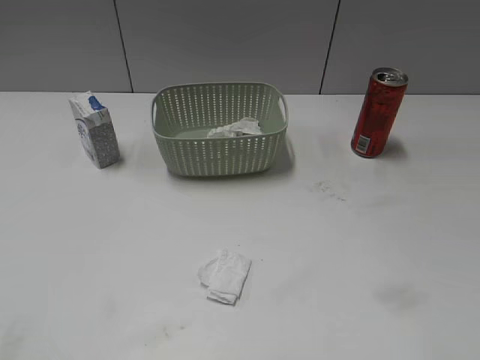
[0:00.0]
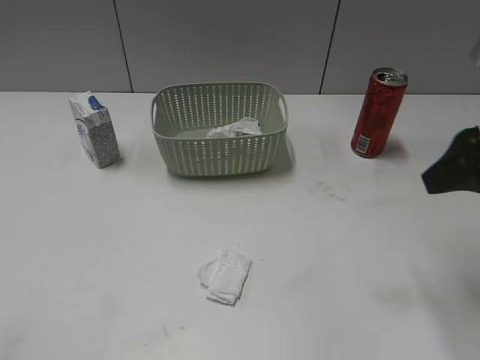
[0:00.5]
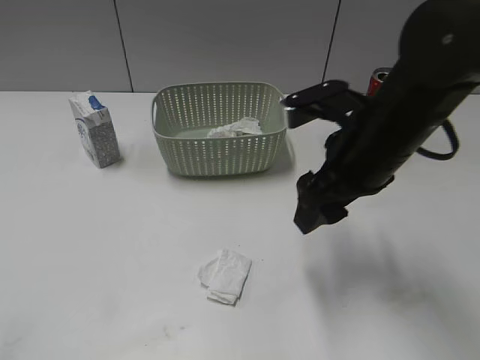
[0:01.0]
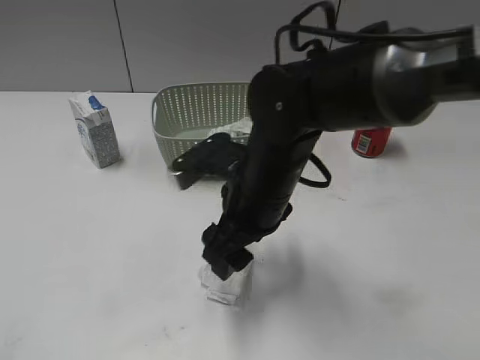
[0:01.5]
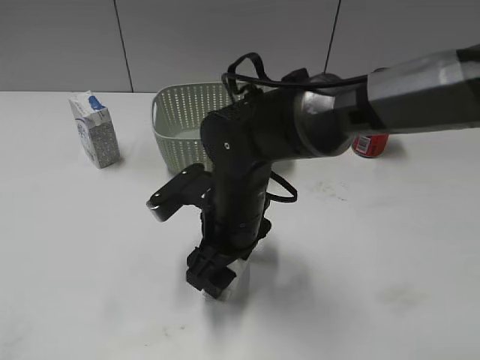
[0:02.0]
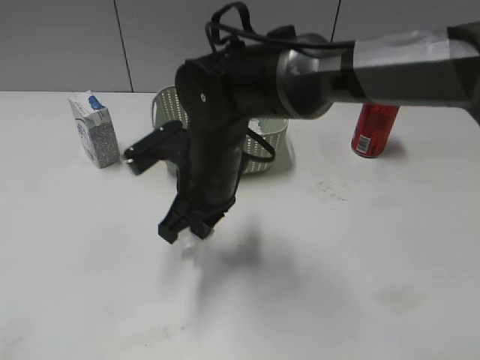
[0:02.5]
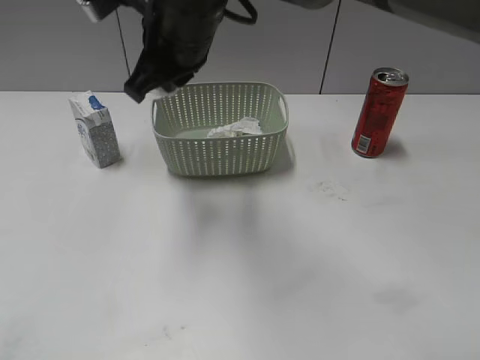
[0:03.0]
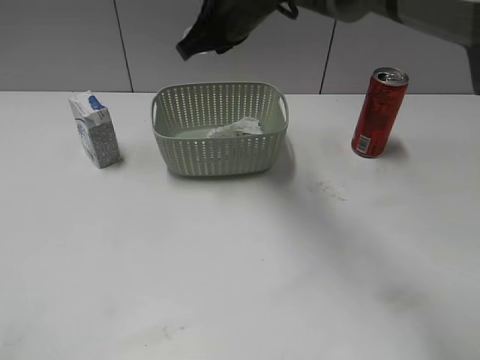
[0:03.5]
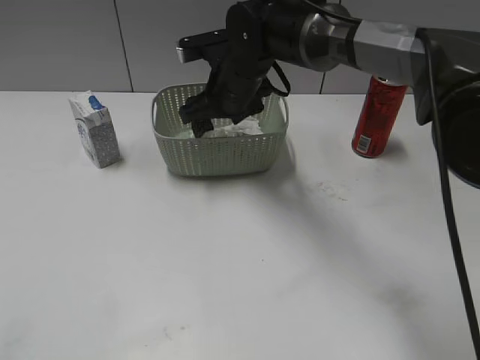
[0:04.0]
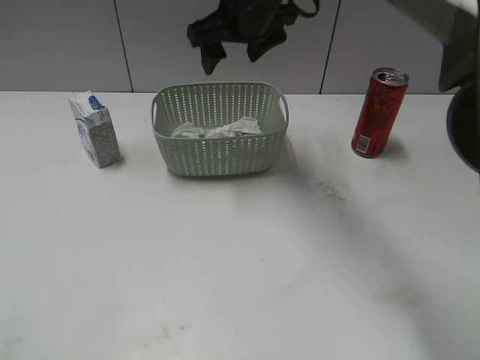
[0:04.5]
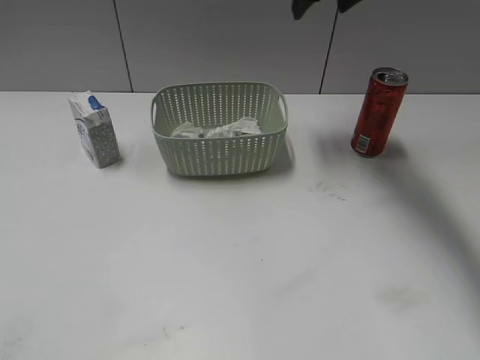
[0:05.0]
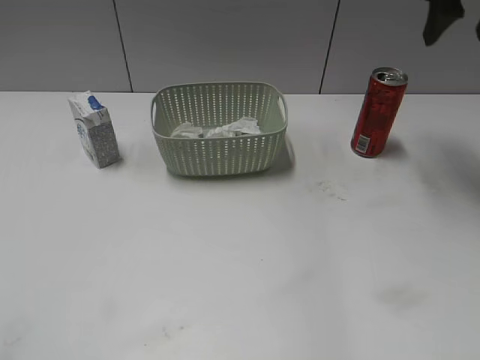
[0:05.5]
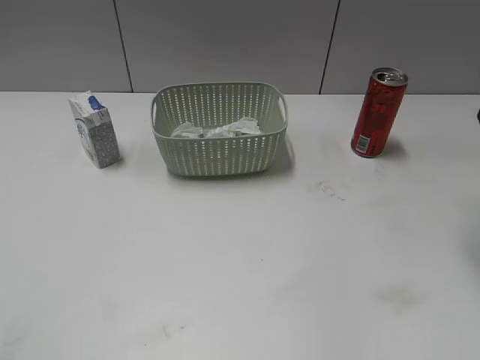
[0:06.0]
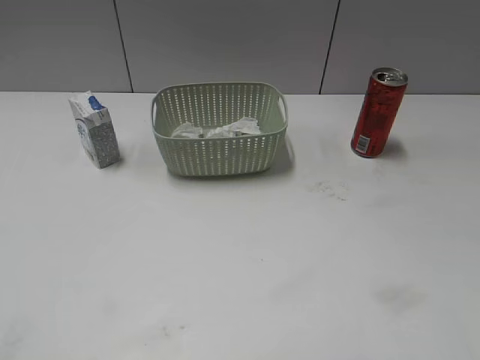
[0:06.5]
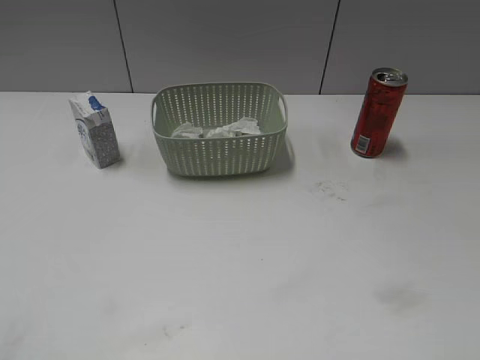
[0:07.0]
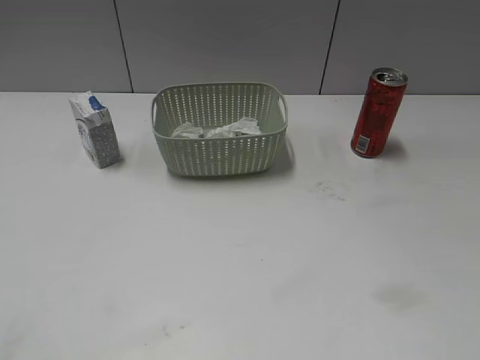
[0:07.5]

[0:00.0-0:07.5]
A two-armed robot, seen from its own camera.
Step, 0:00.0 to 0:02.5: Grasp the waste paper with right gripper.
Step, 0:00.0 to 0:04.0: Place the waste paper in the basket with right gripper.
0:00.0 to 0:02.0: The right gripper moves to the left, forward and downward, approximately 40 cm.
0:02.0 to 0:04.0: The right gripper shifts roughly 15 cm forward, and closes, then reopens.
0:04.0 to 0:05.5: The right gripper goes approximately 30 cm to the right and upward.
0:05.5 to 0:07.5: The right gripper heads backward, covering roughly 40 cm.

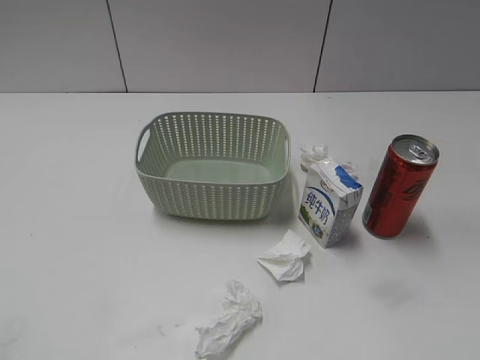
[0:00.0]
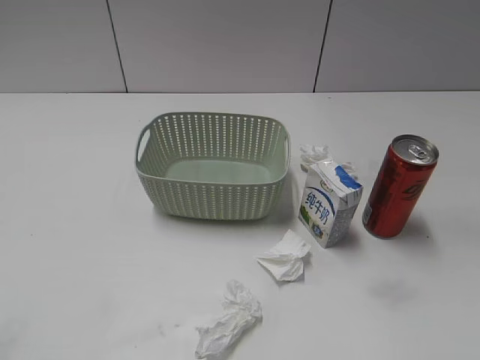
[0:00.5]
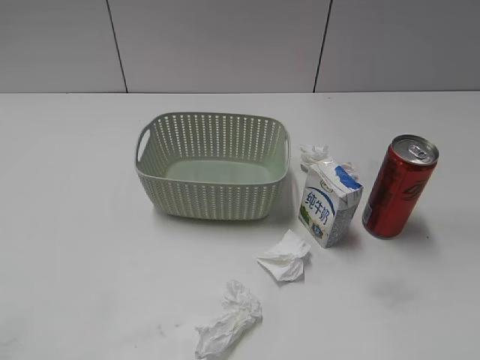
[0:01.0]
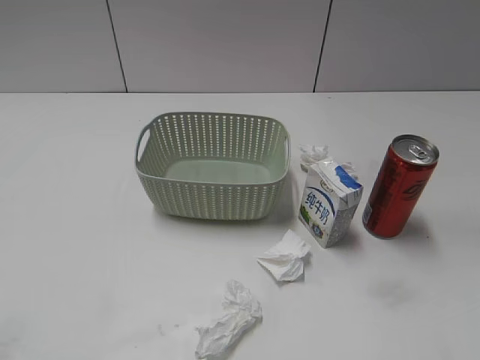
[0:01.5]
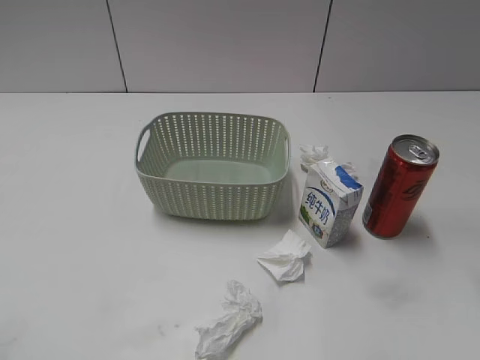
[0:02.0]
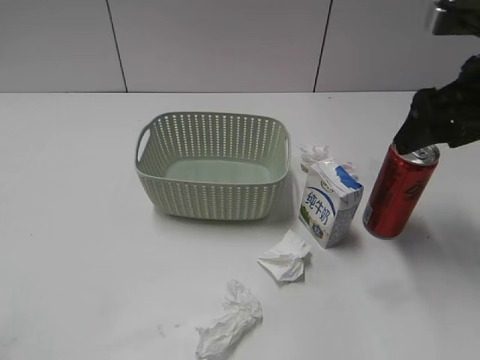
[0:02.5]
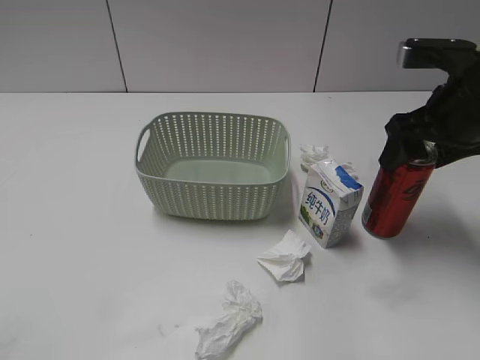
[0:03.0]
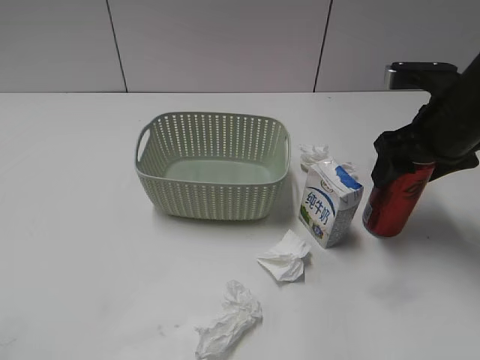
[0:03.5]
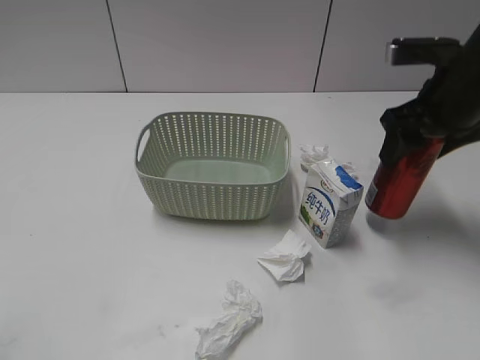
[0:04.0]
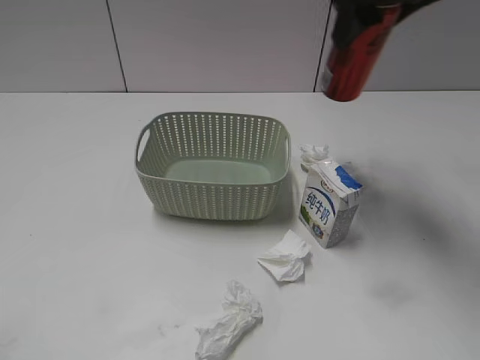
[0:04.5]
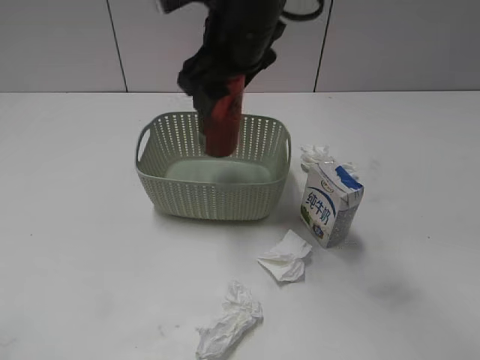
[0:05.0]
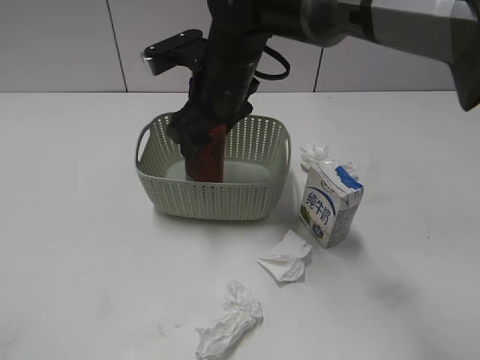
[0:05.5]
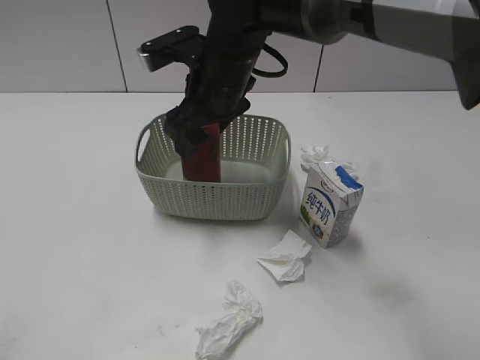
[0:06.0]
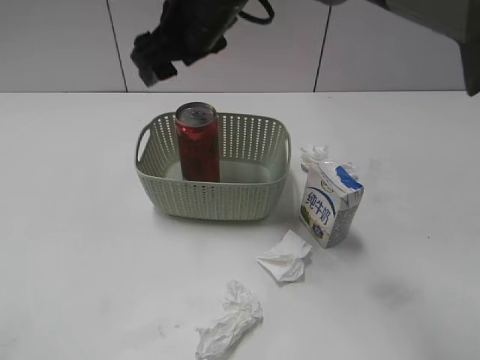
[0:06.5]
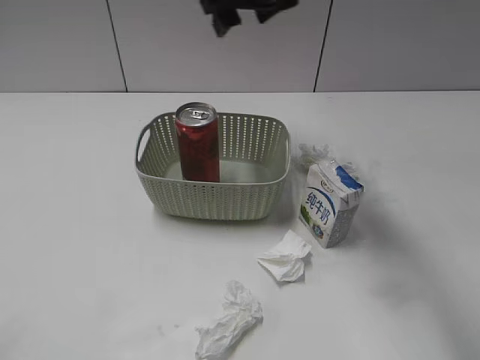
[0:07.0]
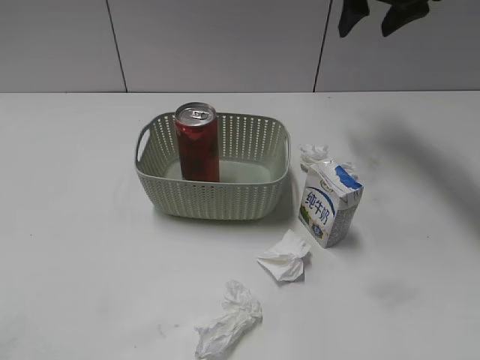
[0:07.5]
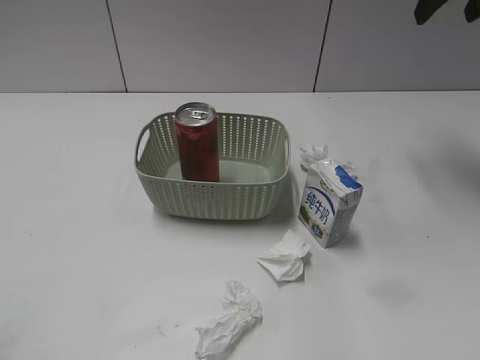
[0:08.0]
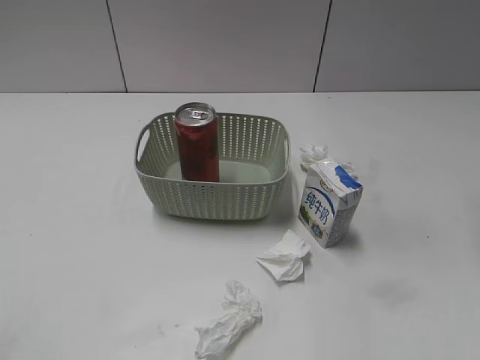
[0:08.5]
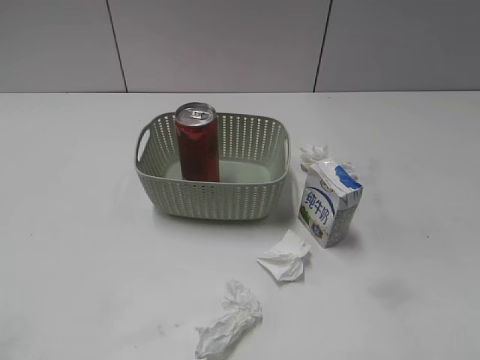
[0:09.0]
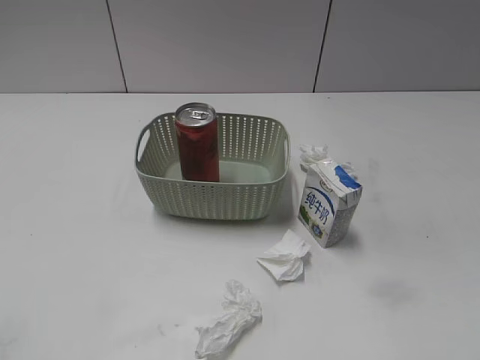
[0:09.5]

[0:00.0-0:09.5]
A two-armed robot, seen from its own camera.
Step, 0:02.5 to 0:03.5: Grasp the cola can with right gripper.
Step, 0:04.0 to 0:06.0: Place the cola can in the basket with right gripper.
0:02.0 to 0:04.0: The right gripper shifts roughly 20 cm forward, downward and to the left.
0:04.0 to 0:05.5: The right gripper moves to the left, about 25 cm.
0:05.5 to 0:07.5: The right gripper travels to the right, forward and upward by approximately 25 cm.
0:07.5 to 0:09.5: The right gripper travels backward by about 50 cm.

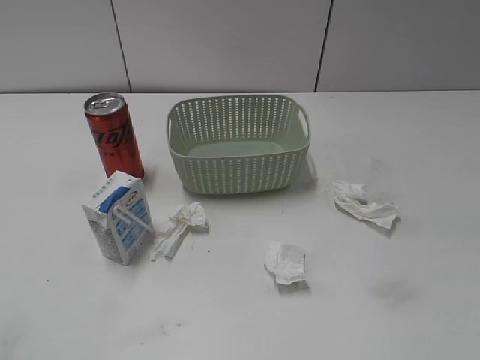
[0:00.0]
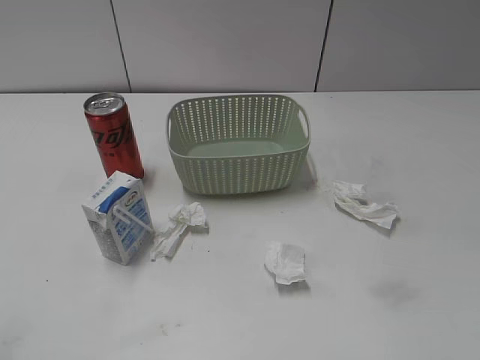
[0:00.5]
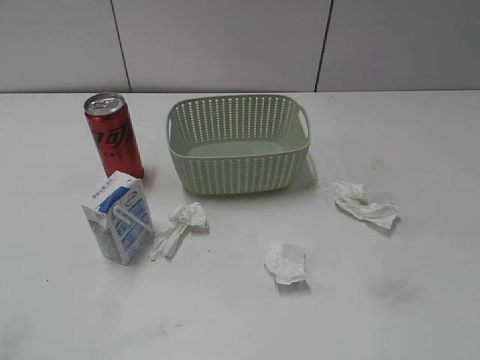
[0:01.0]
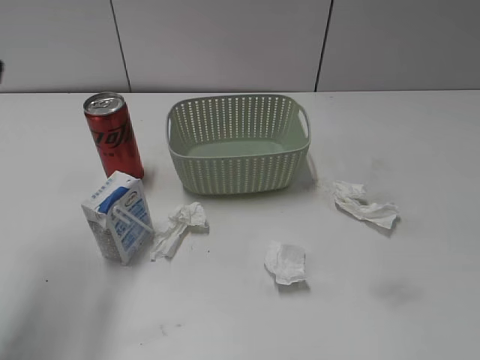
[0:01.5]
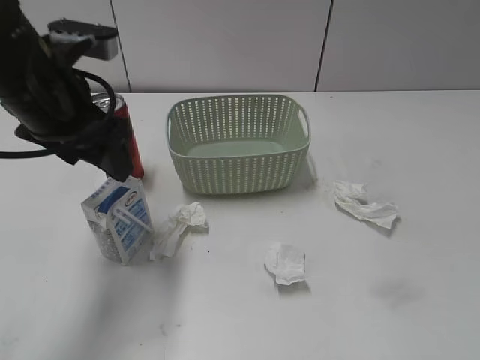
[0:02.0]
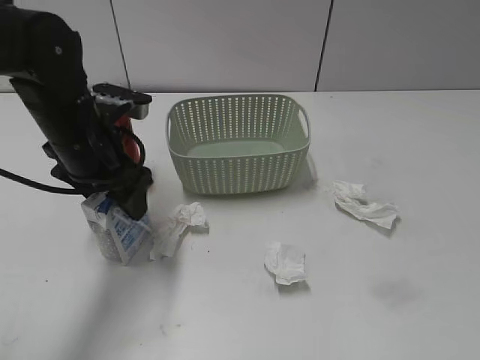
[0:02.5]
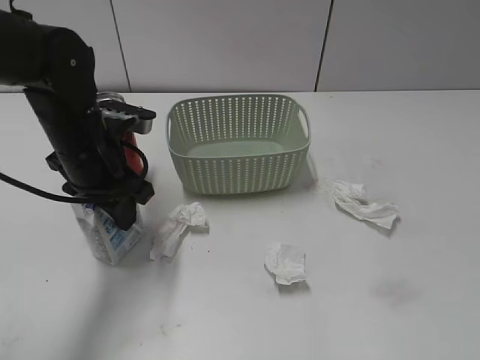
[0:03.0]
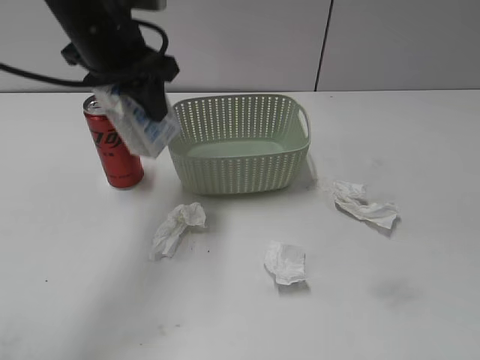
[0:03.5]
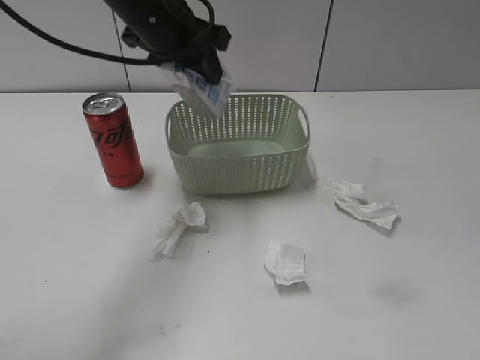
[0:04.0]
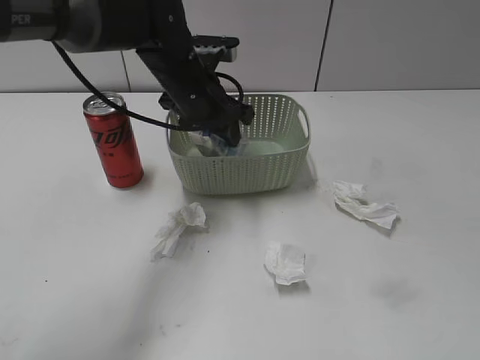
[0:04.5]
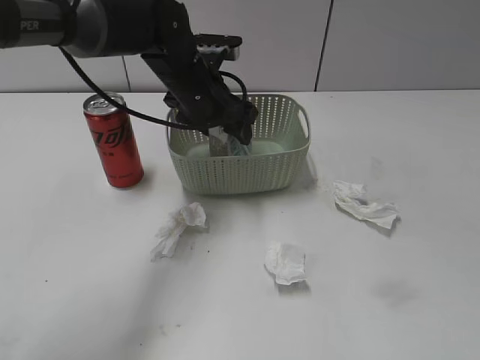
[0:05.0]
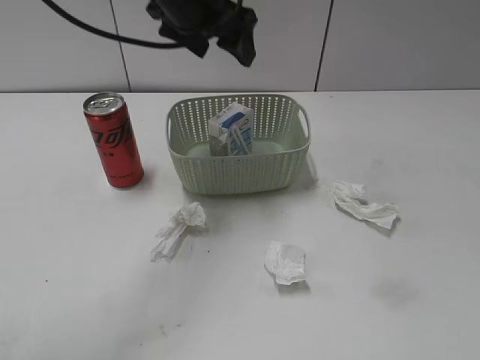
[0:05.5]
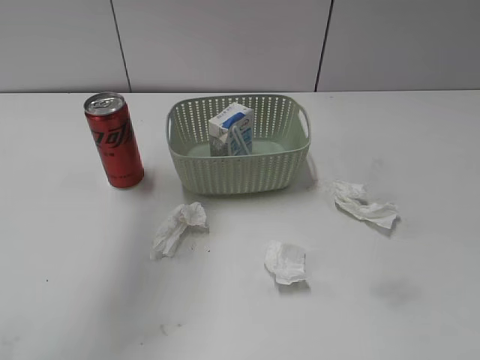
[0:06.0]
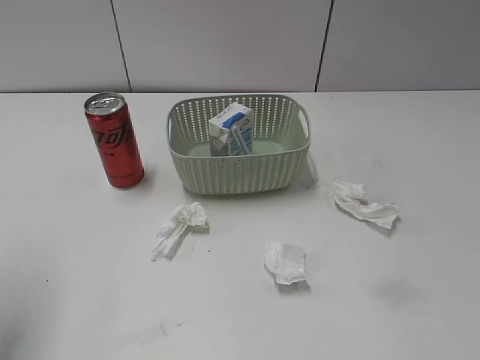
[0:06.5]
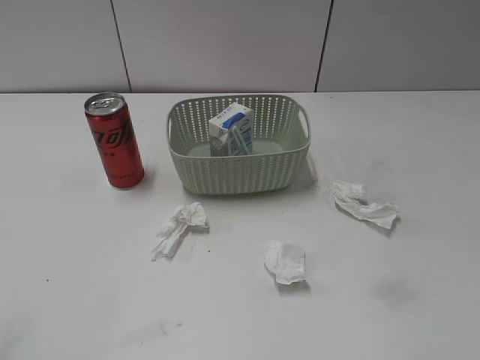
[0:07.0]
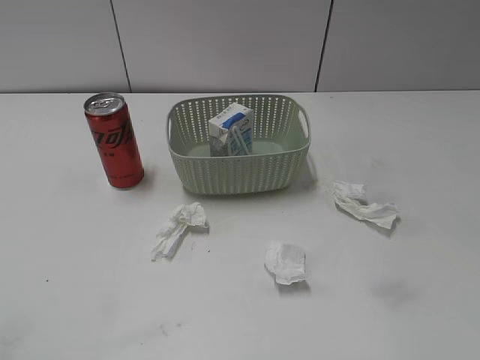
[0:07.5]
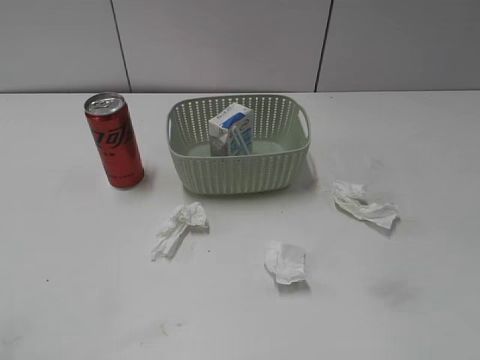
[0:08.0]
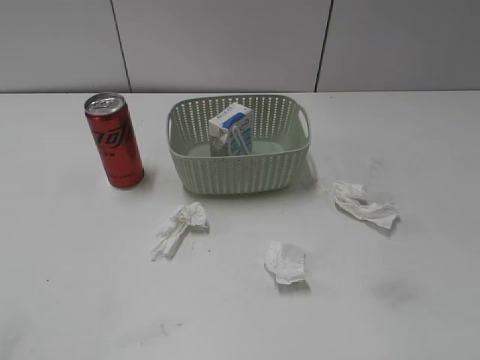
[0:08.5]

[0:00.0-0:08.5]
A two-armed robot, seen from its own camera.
Step, 0:02.0 to 0:03.0: Grasp the milk with left gripper.
Step, 0:03.5 to 0:05.5: Place the milk in the basket with left gripper.
0:02.0 to 0:04.0: The left gripper heads forward and to the right, covering some 15 cm, moves some 10 cm downward and comes back, and closes its fingers.
0:04.0 to 0:06.5: The left gripper shifts approximately 30 cm to the left and backward, and opens up.
0:06.5 to 0:08.5: The left gripper heads backward and downward, covering approximately 20 cm.
